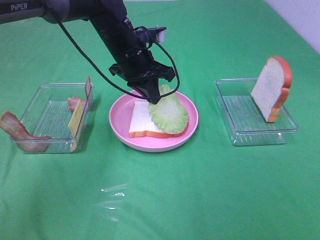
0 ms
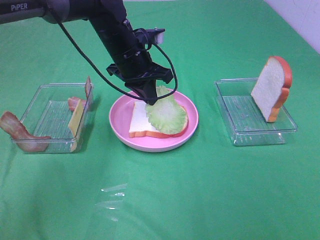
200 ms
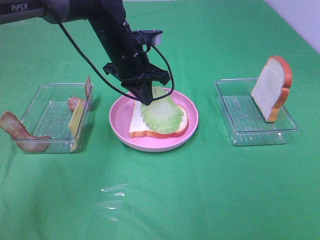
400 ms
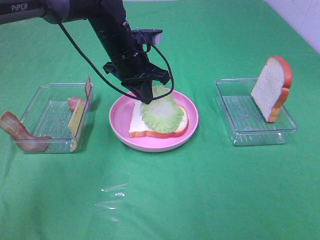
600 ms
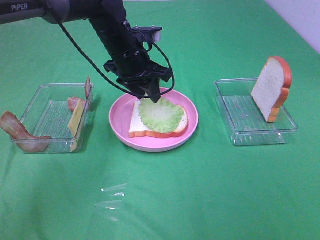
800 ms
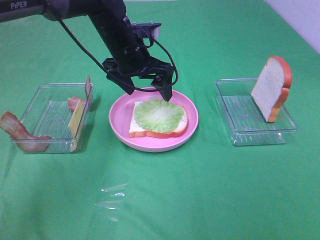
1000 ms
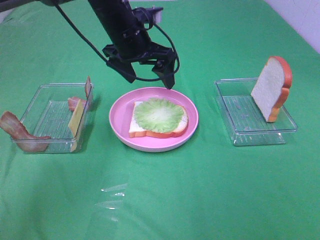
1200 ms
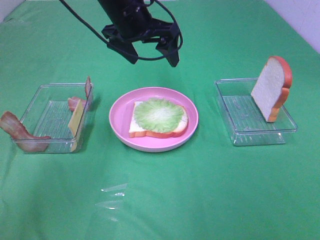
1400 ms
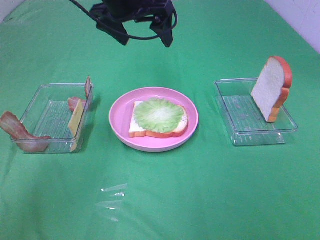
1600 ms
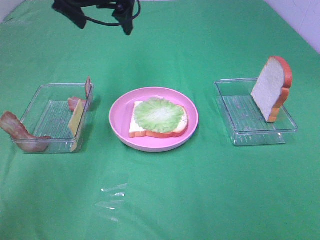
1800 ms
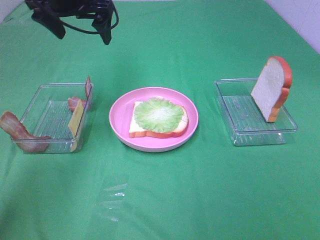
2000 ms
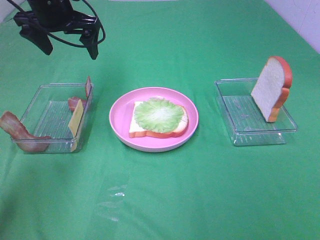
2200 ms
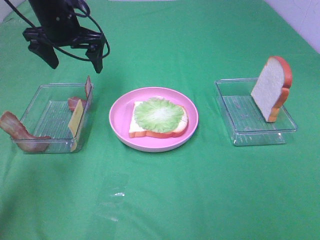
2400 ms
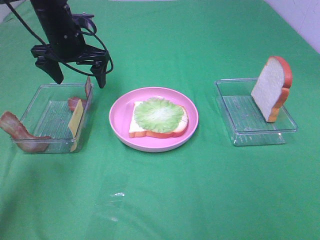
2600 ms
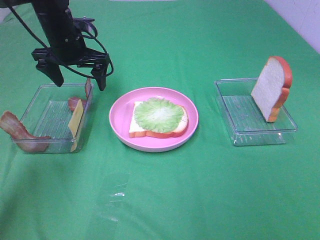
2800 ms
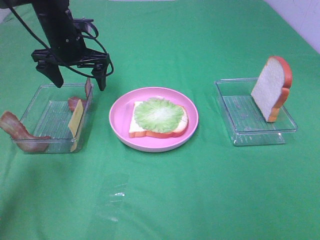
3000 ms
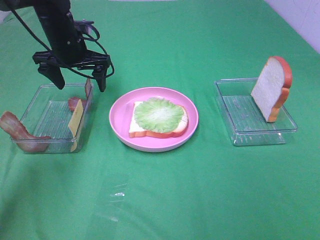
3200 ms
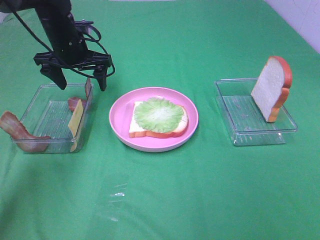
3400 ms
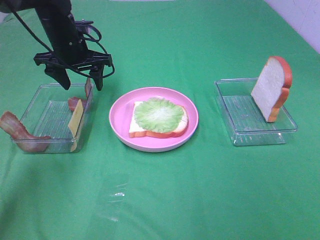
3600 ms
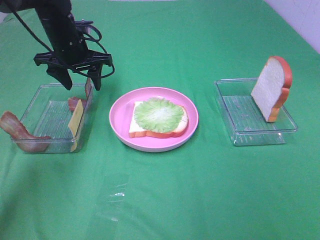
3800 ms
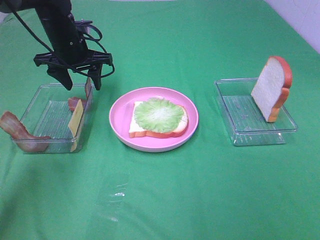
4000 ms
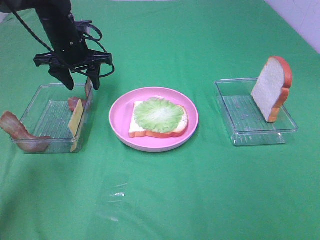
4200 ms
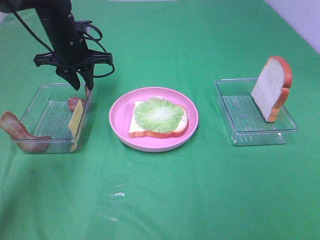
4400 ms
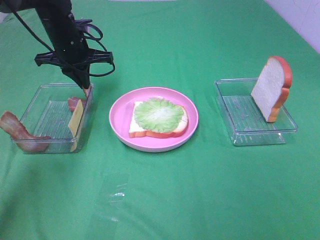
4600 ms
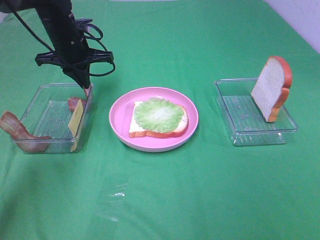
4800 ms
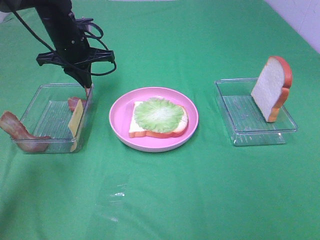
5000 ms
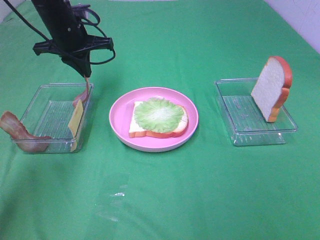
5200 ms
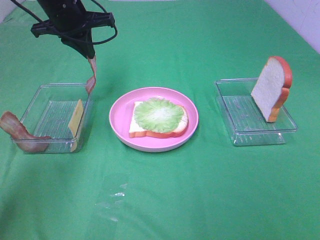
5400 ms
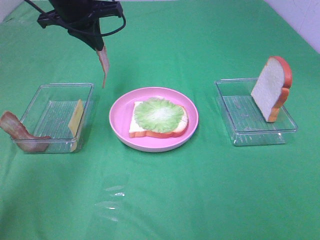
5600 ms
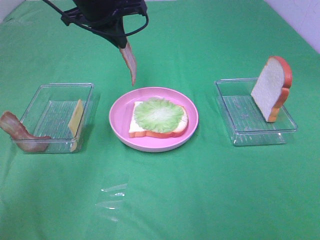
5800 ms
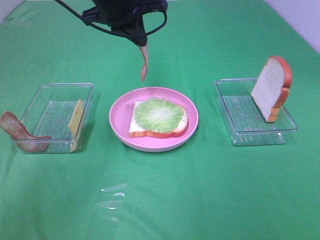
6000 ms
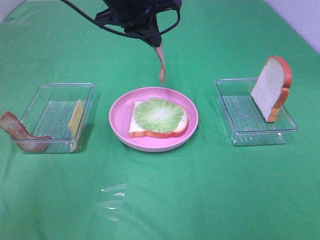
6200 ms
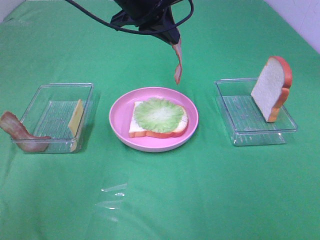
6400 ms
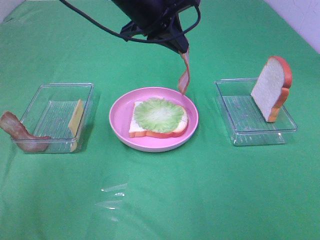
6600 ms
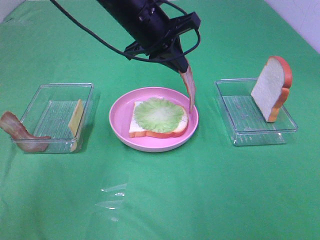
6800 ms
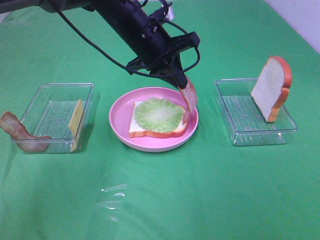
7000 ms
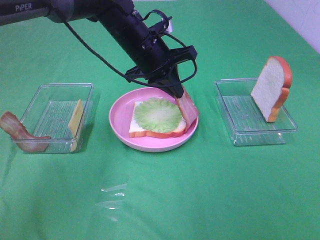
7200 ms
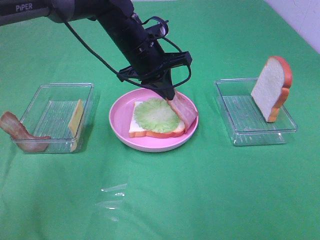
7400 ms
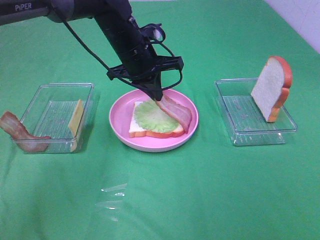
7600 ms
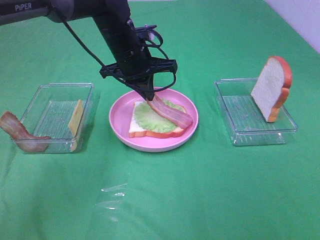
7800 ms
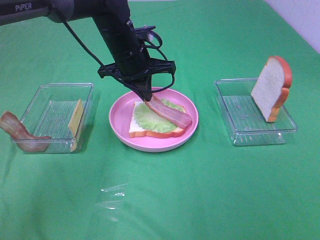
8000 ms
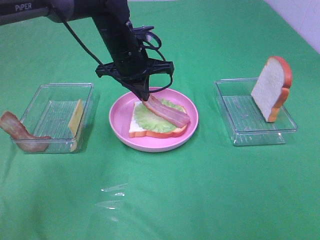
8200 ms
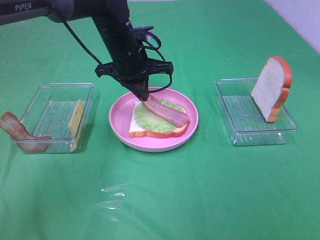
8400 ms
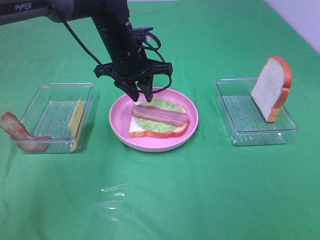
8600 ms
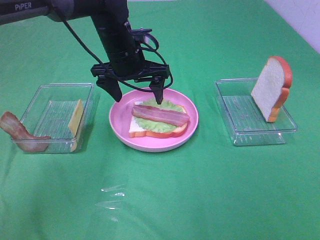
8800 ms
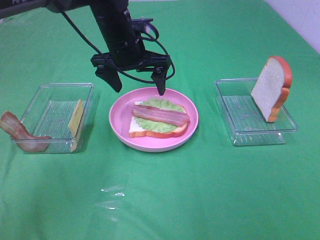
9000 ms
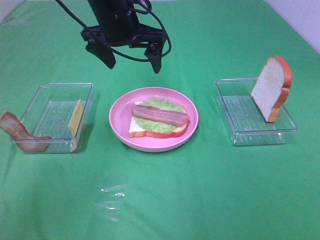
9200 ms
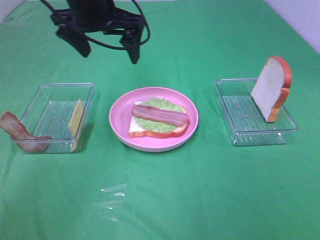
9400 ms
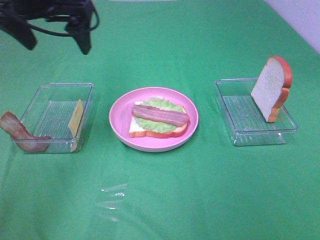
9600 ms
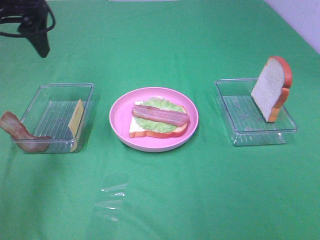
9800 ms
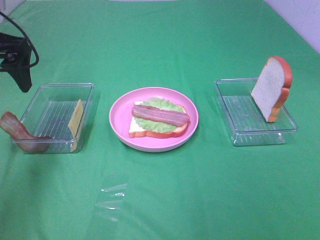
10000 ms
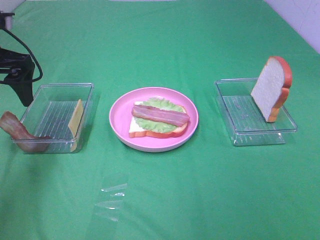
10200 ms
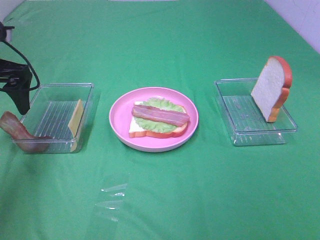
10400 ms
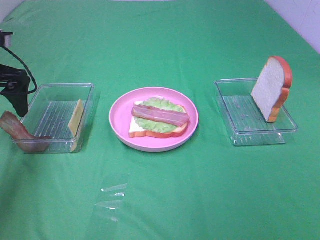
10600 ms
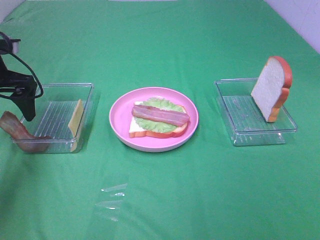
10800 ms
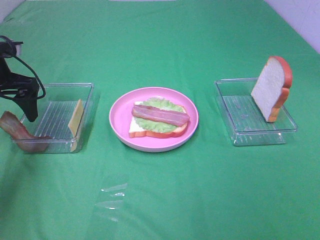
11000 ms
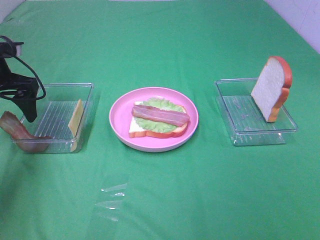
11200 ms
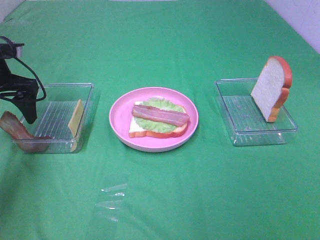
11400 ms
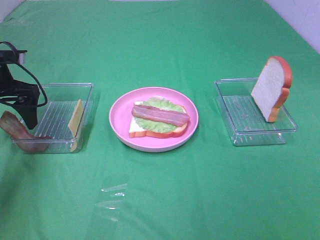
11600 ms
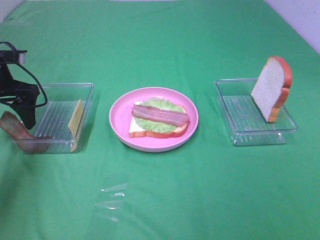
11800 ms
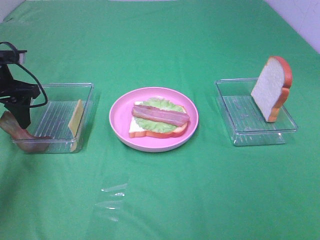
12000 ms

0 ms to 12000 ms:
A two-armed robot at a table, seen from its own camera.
Task of the whole recording: Make sandwiches.
Step, 1000 ms to 4800 ms: Left hand:grab the bacon.
Step, 5000 ms to 8800 ms: Left hand:place bacon on lettuce slice.
0 ms to 1600 ms: The left gripper goes about 10 cm upward, and opens its fingers.
1600 ms to 3000 ms: The left gripper travels downward and to the left by roughly 15 cm.
3000 ms to 4400 ms: The left gripper closes up.
4400 ms to 6000 ms: The left gripper is displaced upward, to the right and backward by approximately 15 cm.
6000 ms to 7600 ms: The left gripper heads downward, covering about 10 cm.
7600 ms to 9000 ms: The left gripper opens.
9000 ms to 10400 ms: The left gripper heads to the left, covering some 25 cm.
10400 ms to 12000 ms: The left gripper moves downward, some 5 cm, and closes its fingers.

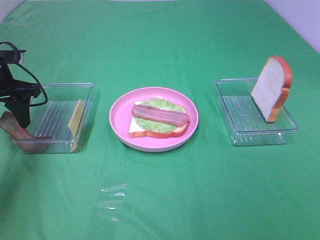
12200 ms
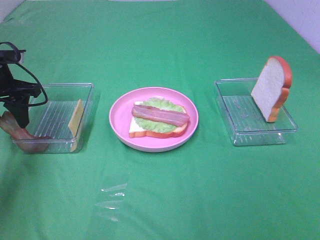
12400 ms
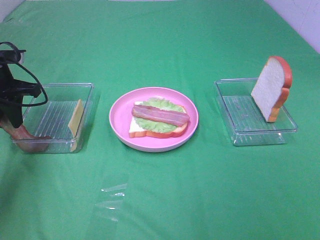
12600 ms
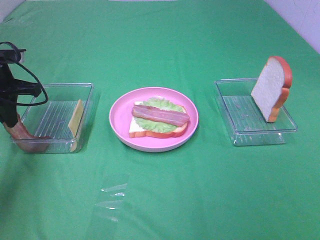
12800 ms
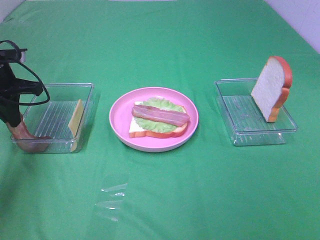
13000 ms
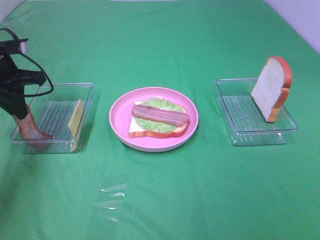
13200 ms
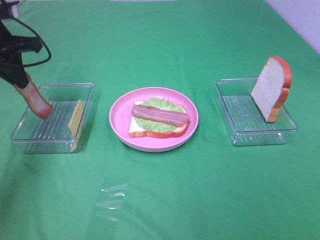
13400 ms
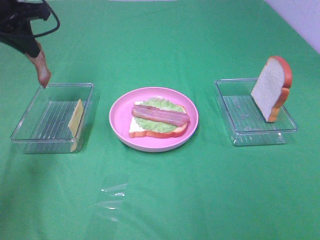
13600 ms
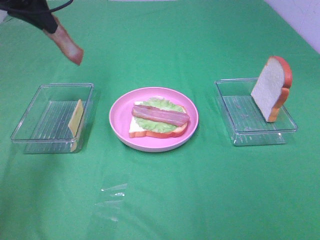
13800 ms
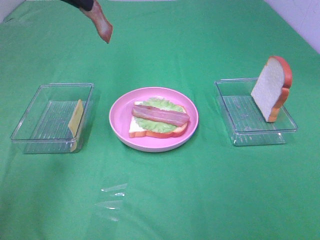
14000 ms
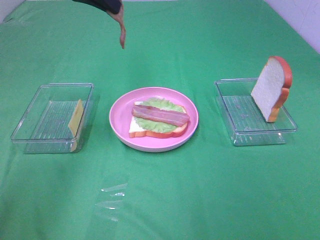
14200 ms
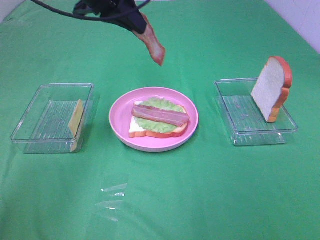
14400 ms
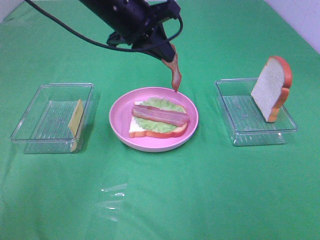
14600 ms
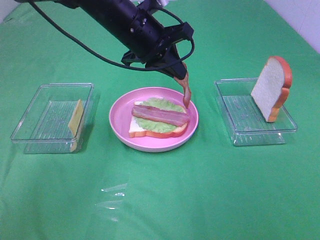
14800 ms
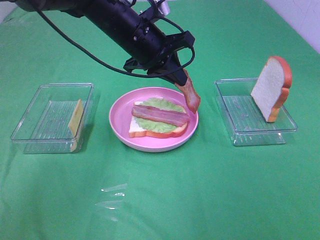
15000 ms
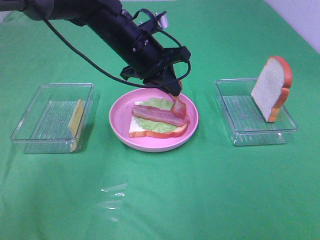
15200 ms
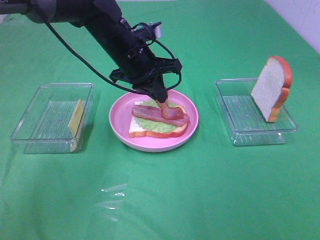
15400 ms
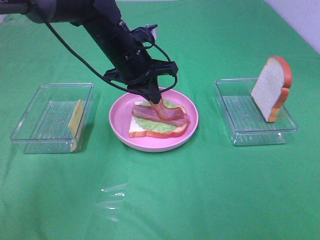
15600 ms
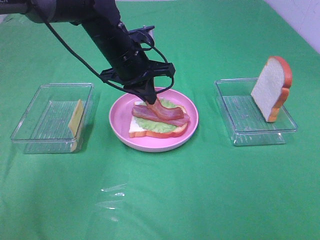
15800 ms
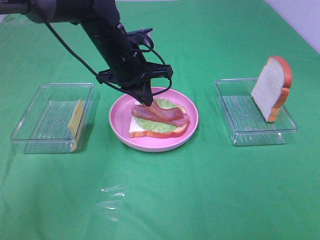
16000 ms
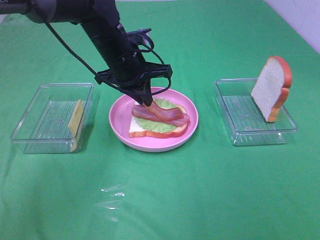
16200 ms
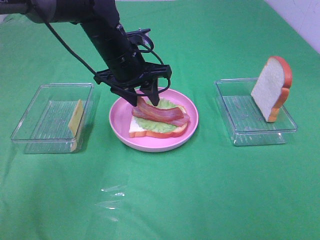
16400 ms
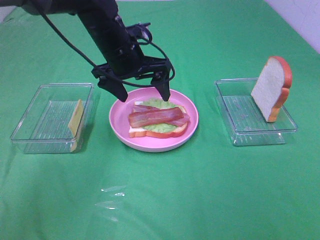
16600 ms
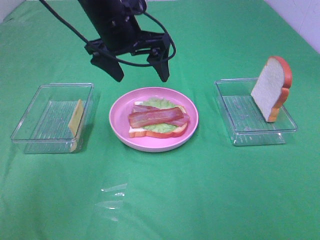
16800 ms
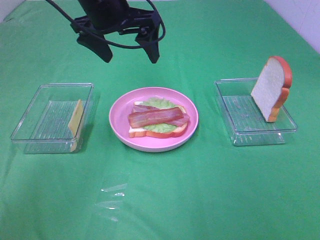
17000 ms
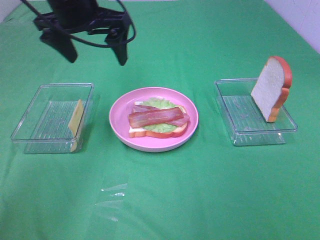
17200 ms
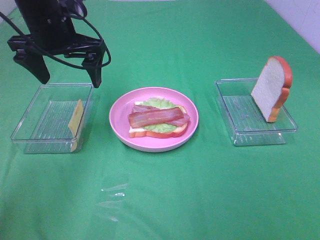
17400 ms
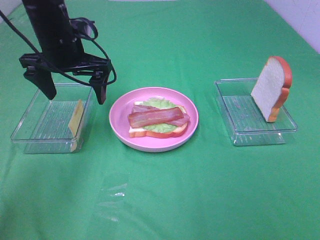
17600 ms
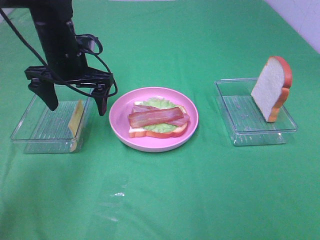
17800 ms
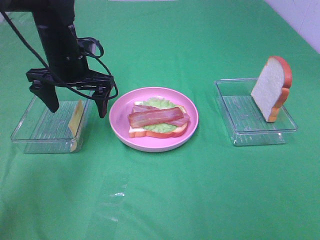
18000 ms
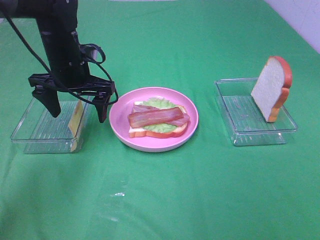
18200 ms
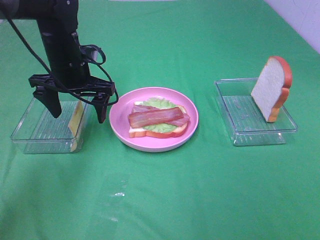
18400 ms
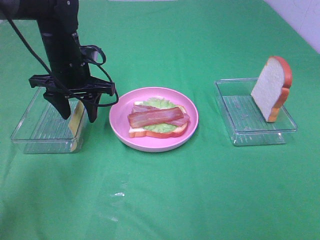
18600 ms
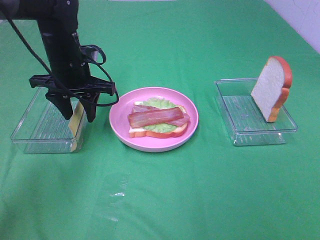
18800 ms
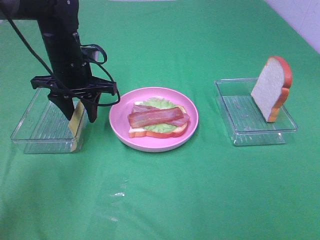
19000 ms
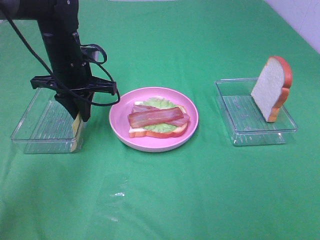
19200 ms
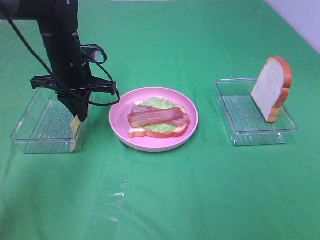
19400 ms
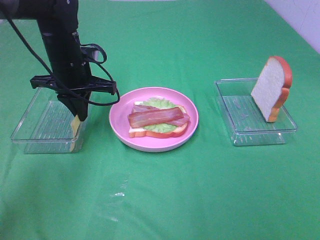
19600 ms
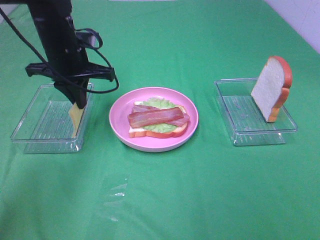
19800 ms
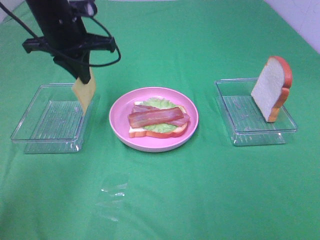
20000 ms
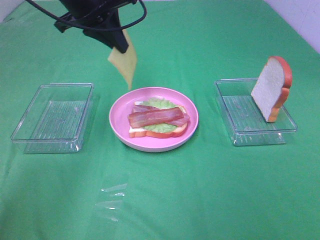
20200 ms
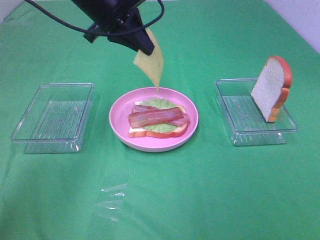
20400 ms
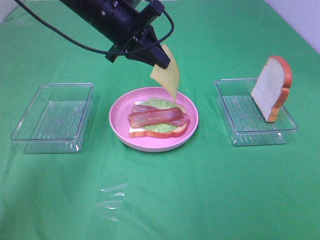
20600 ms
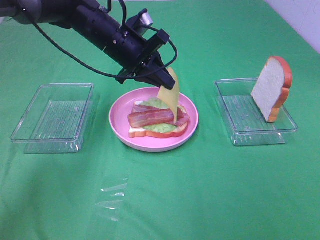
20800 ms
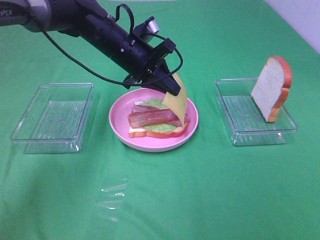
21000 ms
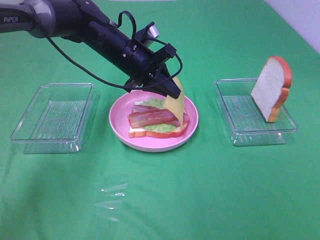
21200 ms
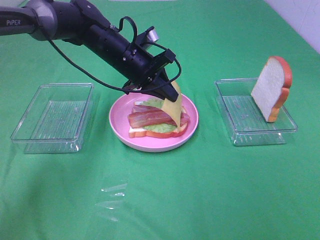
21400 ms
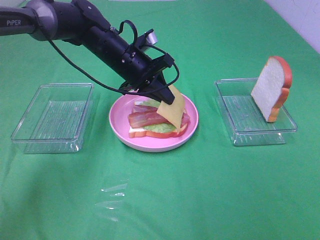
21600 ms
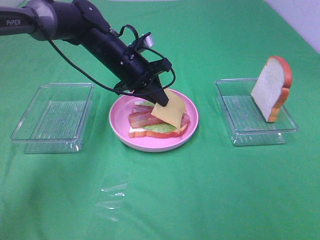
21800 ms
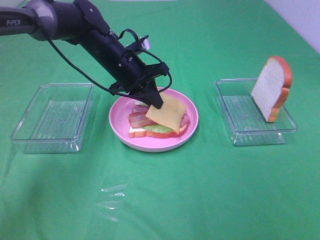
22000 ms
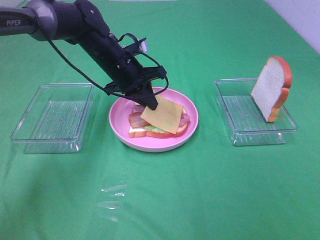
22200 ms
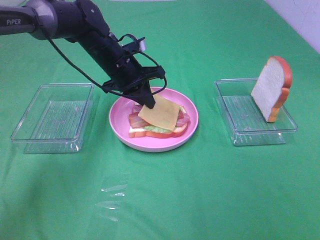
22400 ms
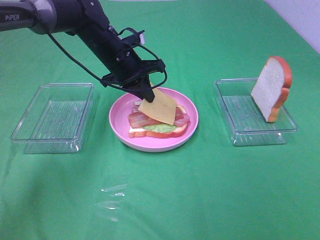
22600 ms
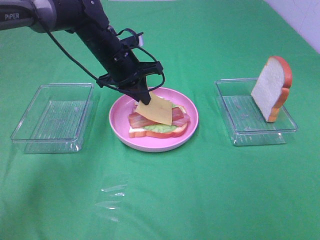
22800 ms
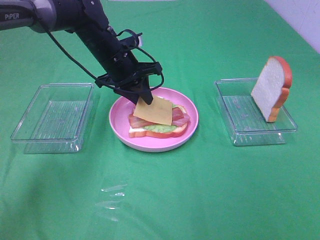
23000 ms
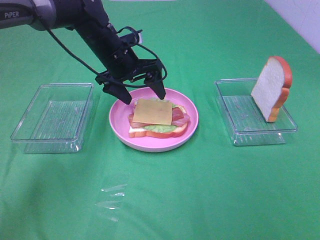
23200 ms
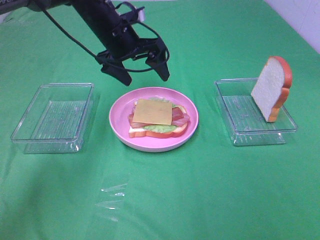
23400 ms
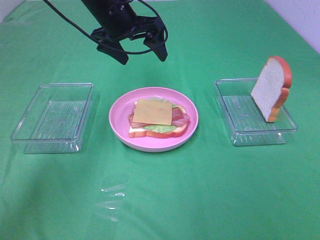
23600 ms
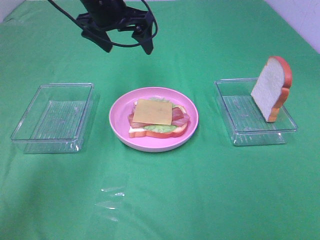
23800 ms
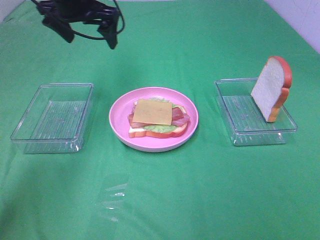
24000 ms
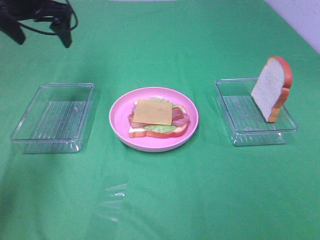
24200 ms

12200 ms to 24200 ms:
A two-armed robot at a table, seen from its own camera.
Task of the whole recording: Make sandwiches.
Step, 13200 ms to 16400 ms: Left hand:place bacon on bacon.
Step, 16600 ms to 19600 ms: Left hand:grab the cheese slice.
Step, 19800 ms to 23200 ms: Left hand:place the cheese slice on top of the bacon.
12200 ms to 13800 ms: The left gripper is displaced upward and to the right by about 15 cm, and closes up.
13800 ms to 15200 ms: The left gripper goes some 25 cm to the right and downward.
15200 ms to 16600 ms: The left gripper opens.
16600 ms to 18200 ms: The left gripper moves to the left, about 10 cm, and goes upward and returns, about 10 cm each way.
18200 ms to 19800 ms: The left gripper closes its fingers.
19800 ms to 21200 ms: The left gripper heads to the right, covering some 10 cm, and reaches some 10 cm upward, then returns.
22600 ms to 24200 ms: The left gripper shifts approximately 20 cm to the left and upward, and opens.
